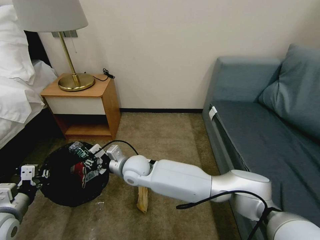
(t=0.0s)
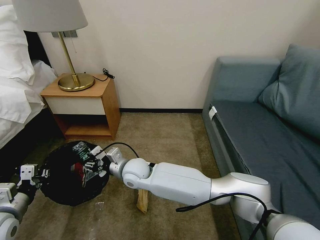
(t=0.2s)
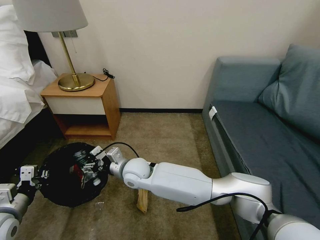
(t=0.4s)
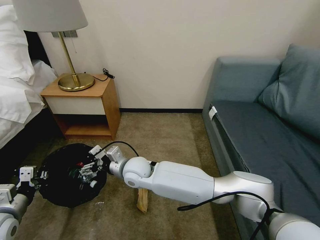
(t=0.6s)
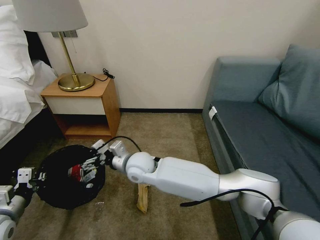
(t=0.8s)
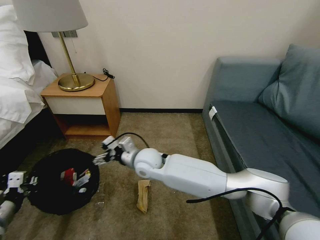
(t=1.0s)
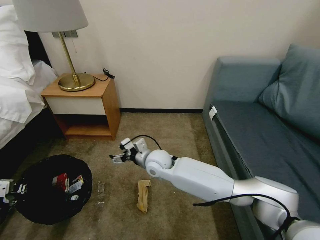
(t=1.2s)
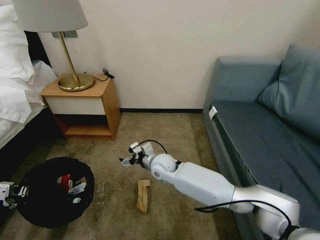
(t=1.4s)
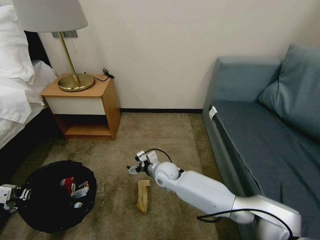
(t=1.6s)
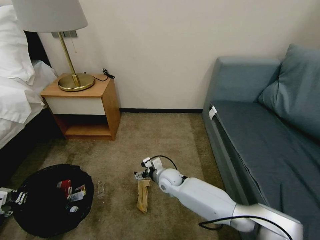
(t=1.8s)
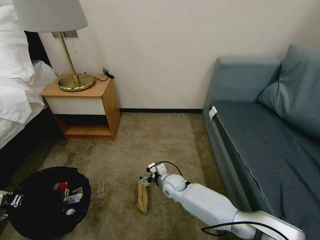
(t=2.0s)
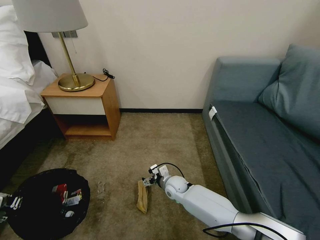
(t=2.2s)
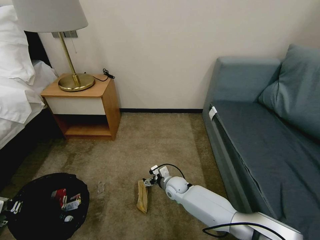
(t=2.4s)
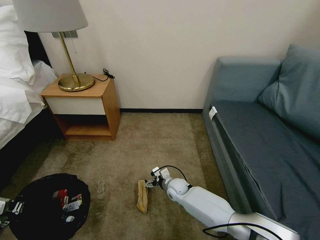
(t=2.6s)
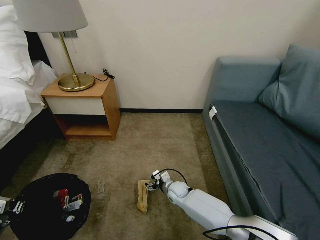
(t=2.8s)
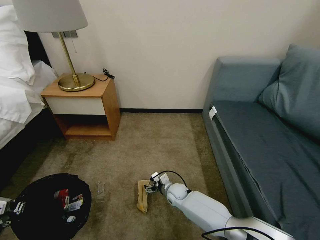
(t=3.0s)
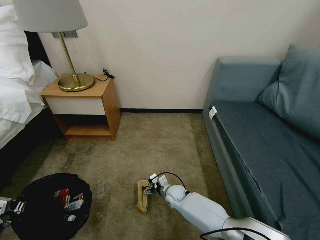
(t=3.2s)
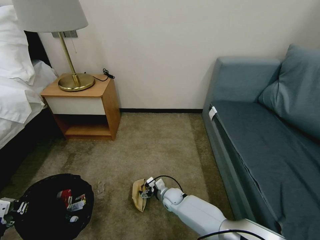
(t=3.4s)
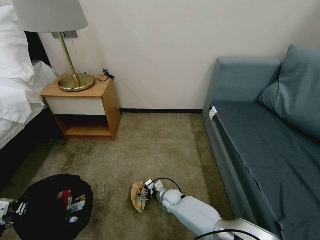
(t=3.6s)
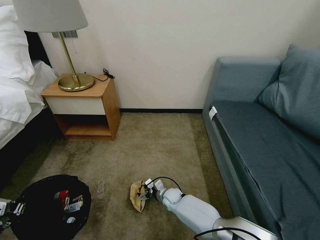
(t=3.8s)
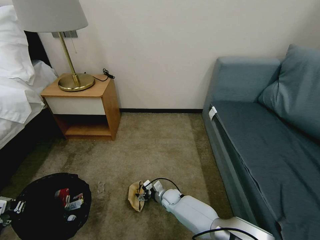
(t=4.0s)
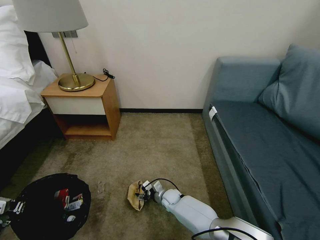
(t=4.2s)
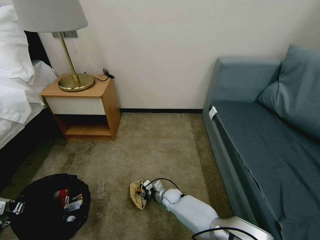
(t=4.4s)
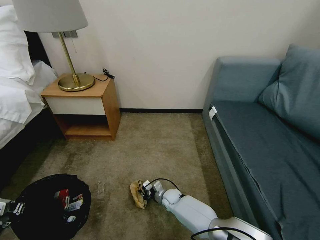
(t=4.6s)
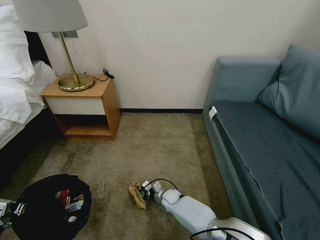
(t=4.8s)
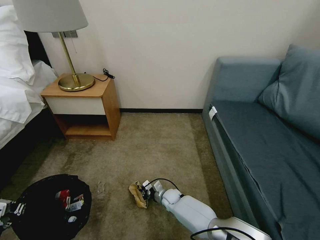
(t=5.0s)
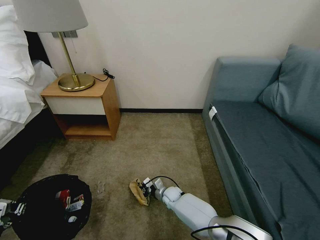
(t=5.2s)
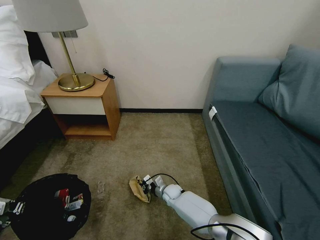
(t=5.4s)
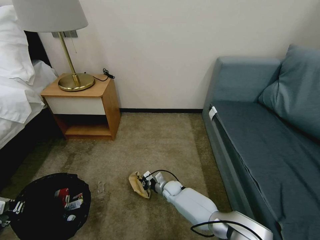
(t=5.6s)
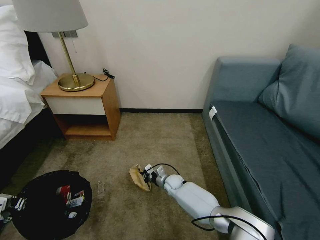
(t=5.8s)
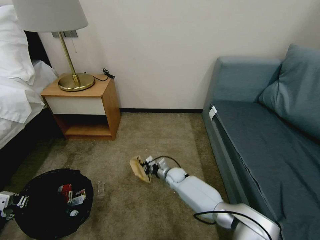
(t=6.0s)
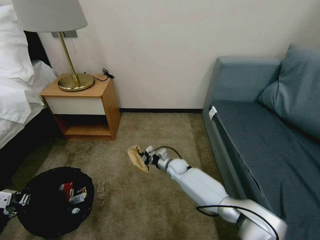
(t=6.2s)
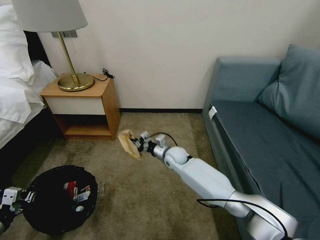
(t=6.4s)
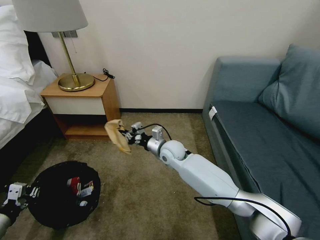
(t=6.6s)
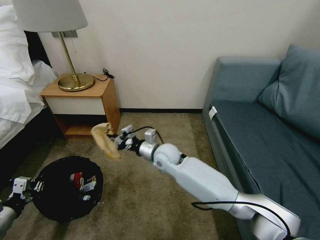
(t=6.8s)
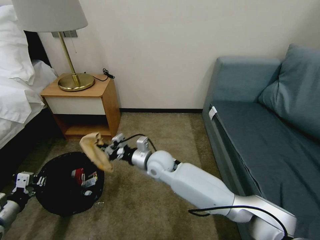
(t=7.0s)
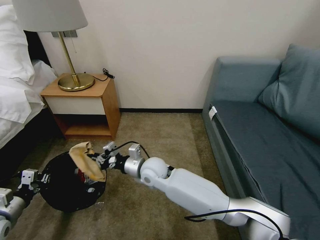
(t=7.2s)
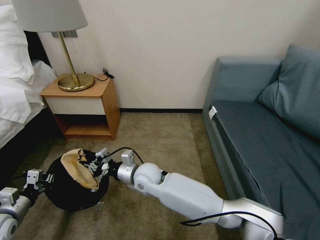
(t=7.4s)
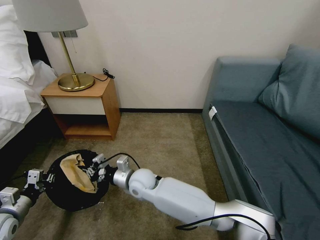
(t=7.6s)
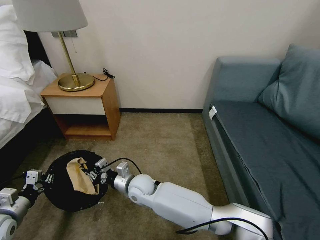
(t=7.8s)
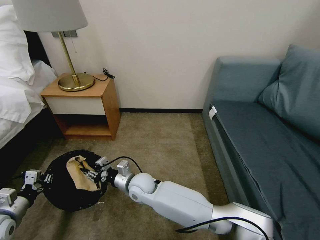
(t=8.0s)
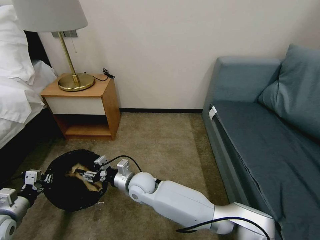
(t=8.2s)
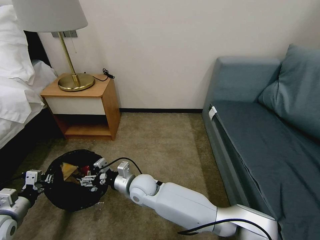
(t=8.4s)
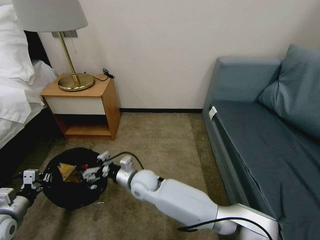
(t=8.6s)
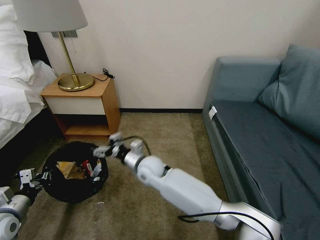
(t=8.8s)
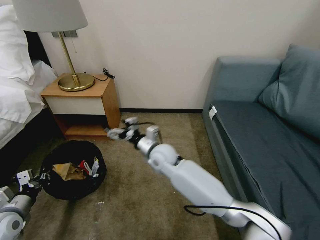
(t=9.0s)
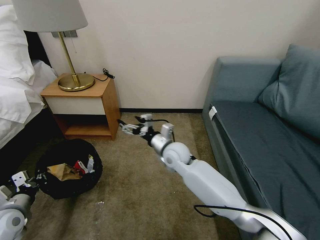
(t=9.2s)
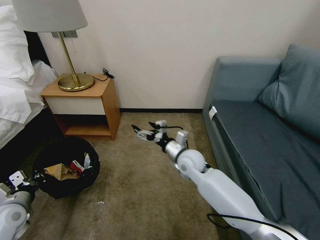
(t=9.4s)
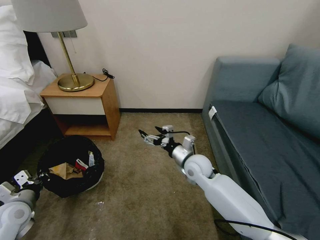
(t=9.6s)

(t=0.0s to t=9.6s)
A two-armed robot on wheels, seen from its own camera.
Task of the whole recording: Pick up the trash bin, then pick up the garbage on the floor and place it into the trash bin.
t=0.0s - t=1.6s: The left gripper goes approximately 10 cm to the left and backward; the right gripper travels to the right and downward by roughly 10 cm, and opens its fingers.
t=1.6s - t=3.2s: The right gripper travels downward by roughly 15 cm.
t=3.2s - t=4.8s: The right gripper closes up.
t=4.8s - t=6.4s: The right gripper shifts about 25 cm upward and forward.
t=6.4s - t=8.0s: The right gripper heads to the left and backward, covering some 20 cm. The left gripper heads forward, covering some 5 cm.
t=8.0s - t=9.6s: The right gripper shifts some 20 cm to the right, and opens. The left gripper ends up roughly 5 cm from where it was.

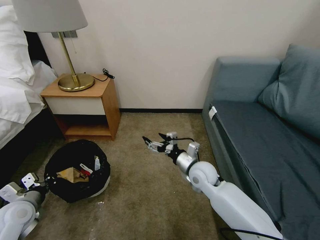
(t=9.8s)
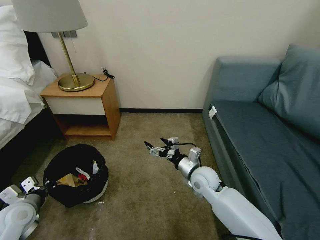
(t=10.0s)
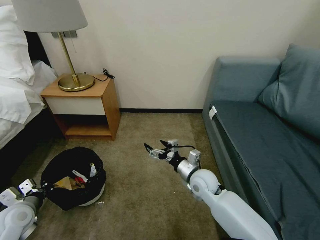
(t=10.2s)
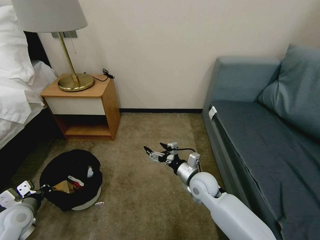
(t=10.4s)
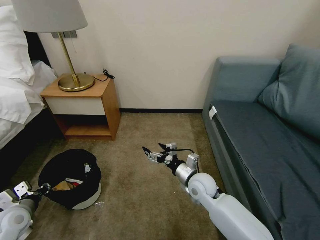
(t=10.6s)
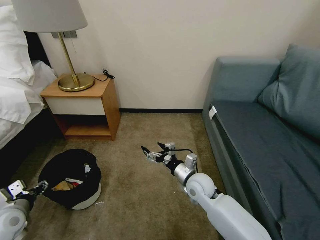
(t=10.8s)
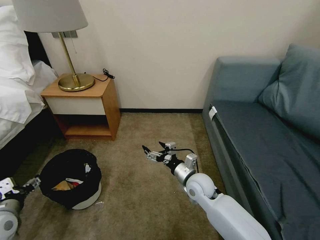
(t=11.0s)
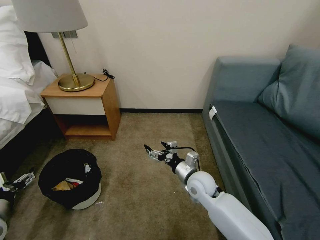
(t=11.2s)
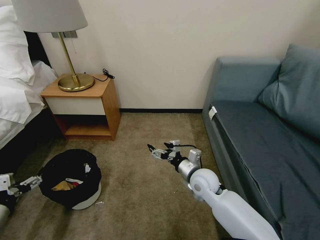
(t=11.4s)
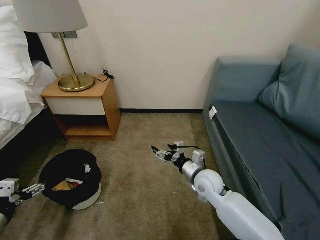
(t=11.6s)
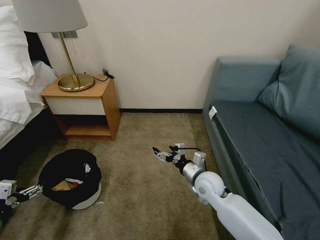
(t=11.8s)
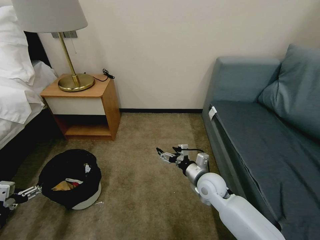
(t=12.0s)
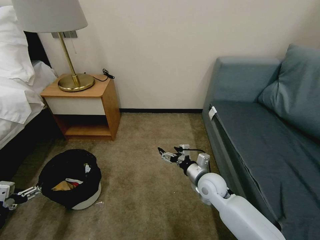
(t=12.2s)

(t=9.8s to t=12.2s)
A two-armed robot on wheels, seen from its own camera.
Task of the whole recording: Pick up the trash bin, then pick up the garbage on the floor and place it into the trash bin.
t=9.8s - t=11.0s: The left gripper opens its fingers.
t=11.0s - t=12.2s: The left gripper goes some 10 cm backward.
